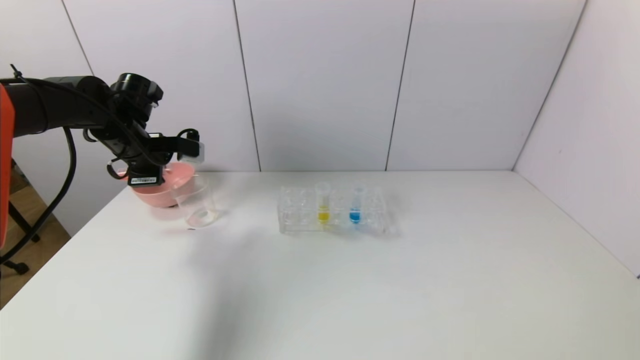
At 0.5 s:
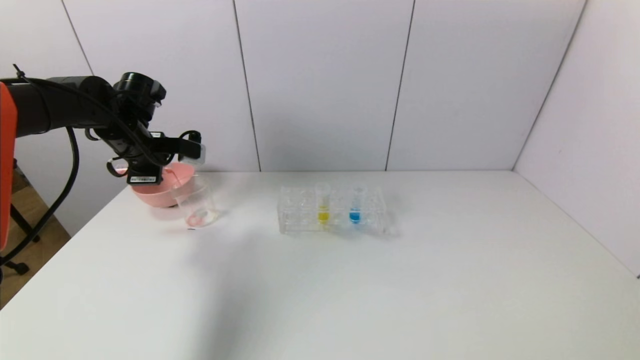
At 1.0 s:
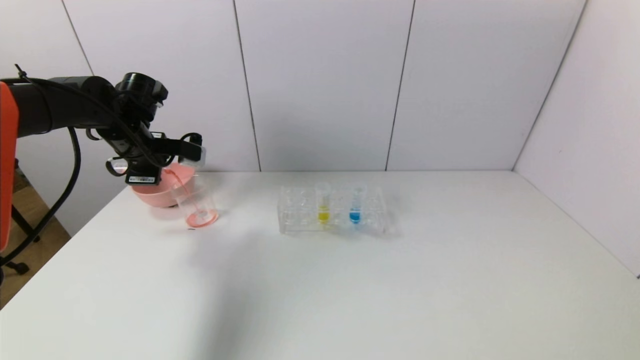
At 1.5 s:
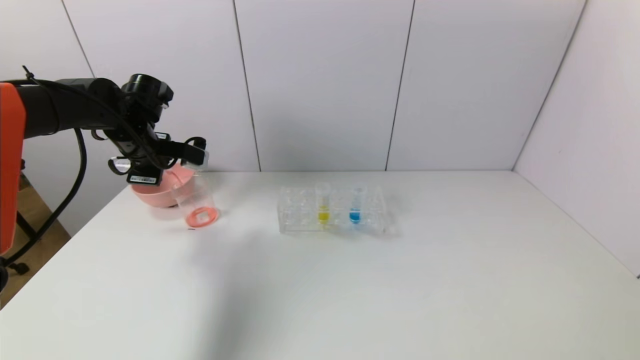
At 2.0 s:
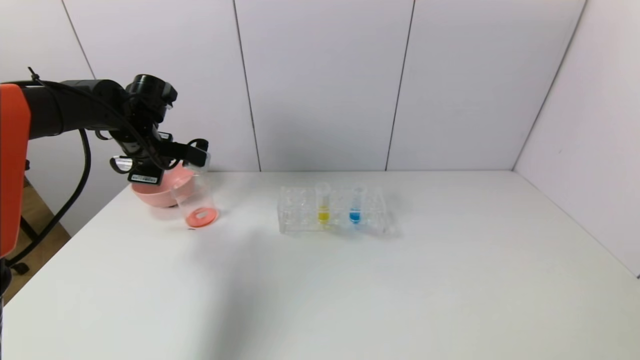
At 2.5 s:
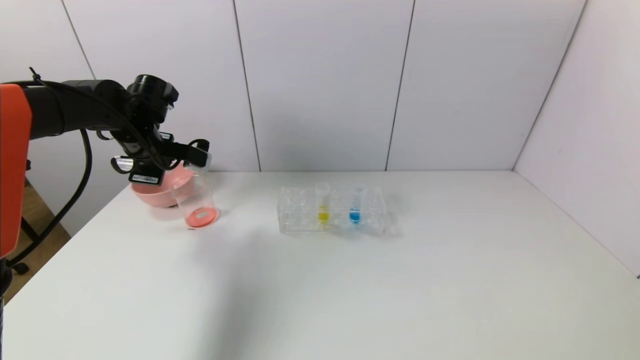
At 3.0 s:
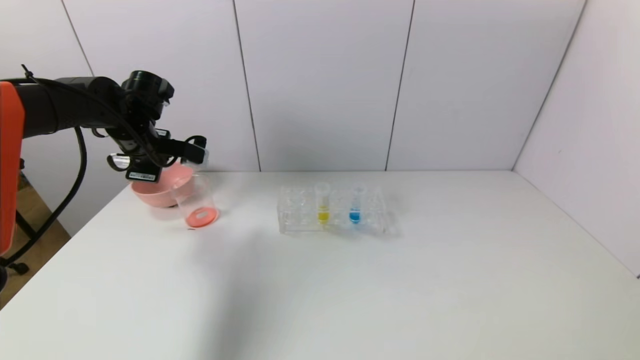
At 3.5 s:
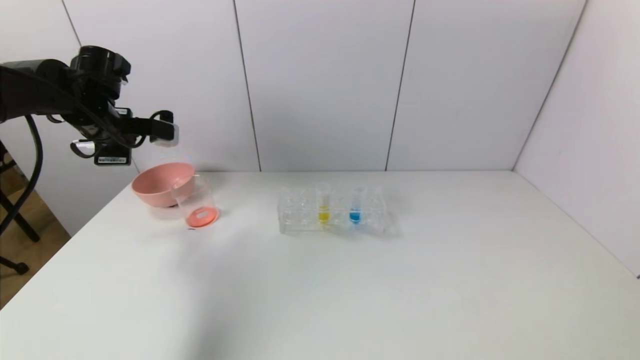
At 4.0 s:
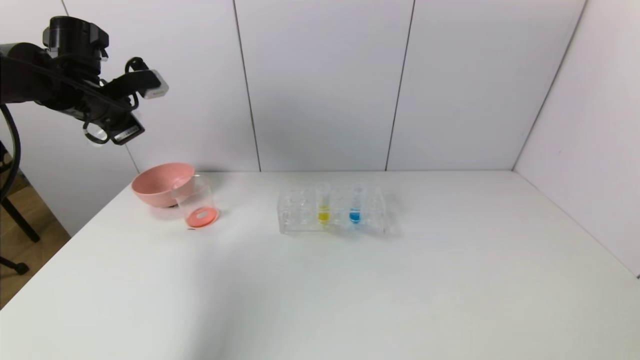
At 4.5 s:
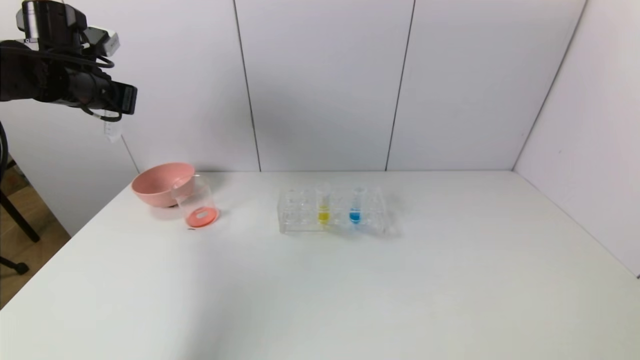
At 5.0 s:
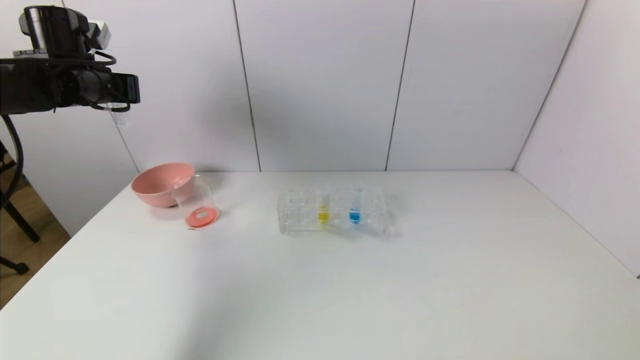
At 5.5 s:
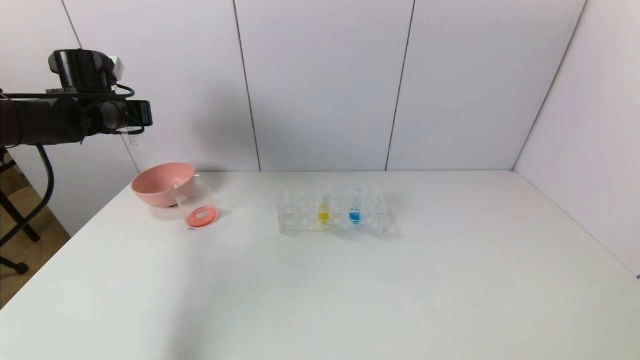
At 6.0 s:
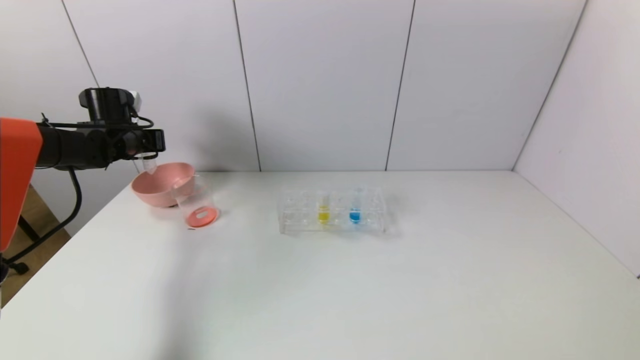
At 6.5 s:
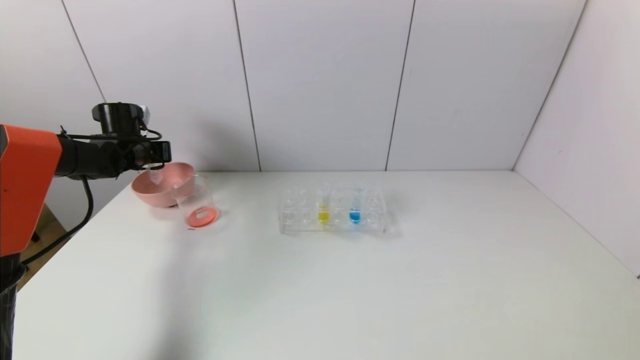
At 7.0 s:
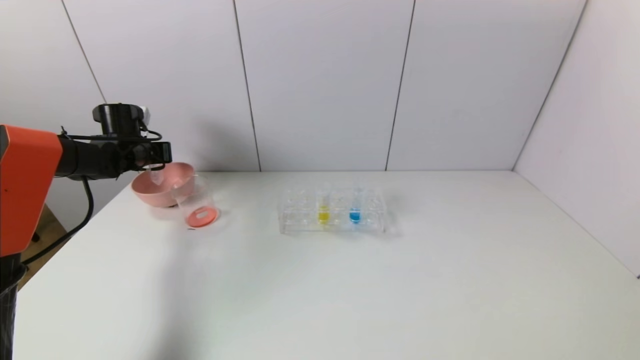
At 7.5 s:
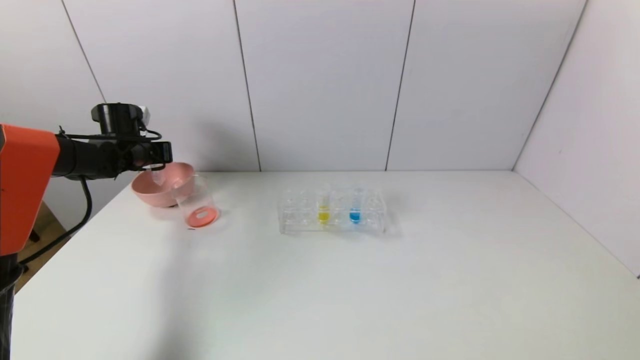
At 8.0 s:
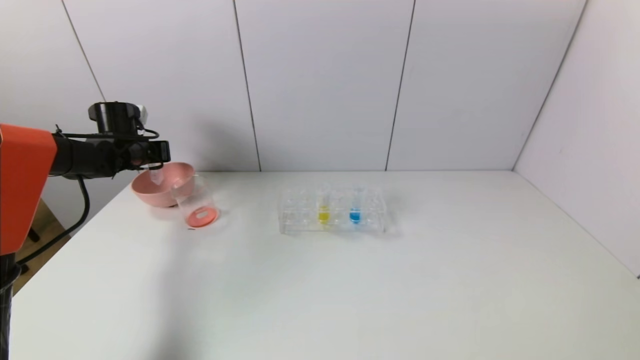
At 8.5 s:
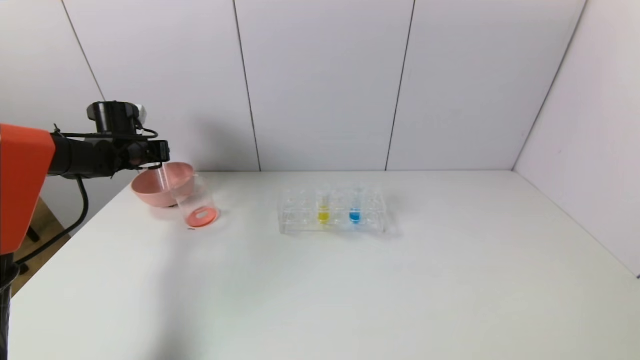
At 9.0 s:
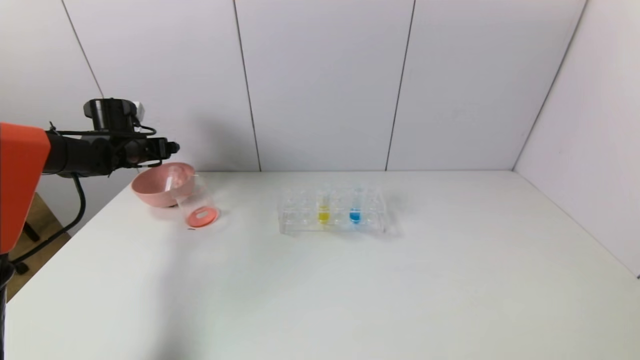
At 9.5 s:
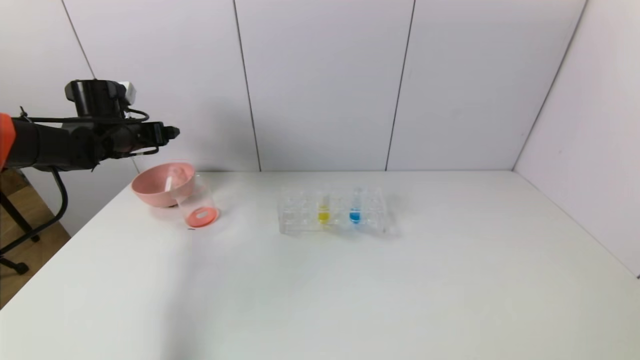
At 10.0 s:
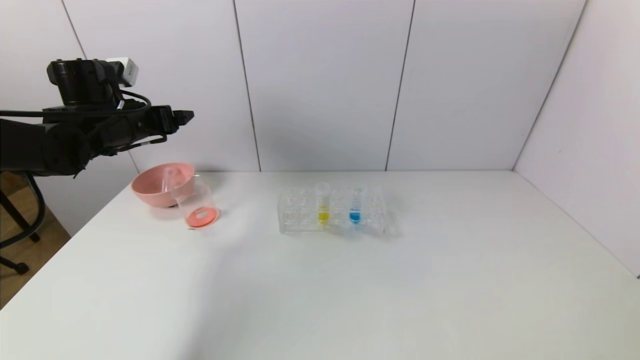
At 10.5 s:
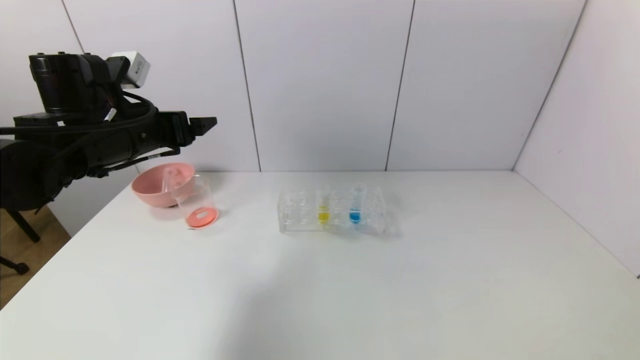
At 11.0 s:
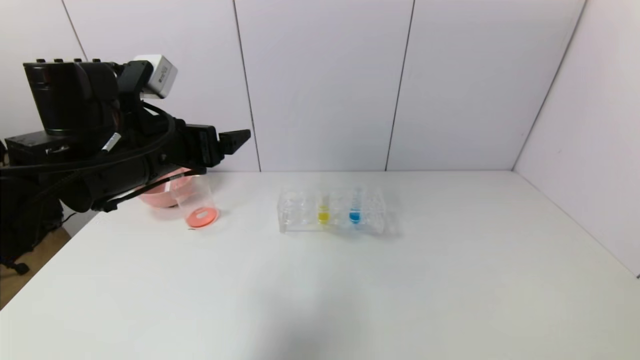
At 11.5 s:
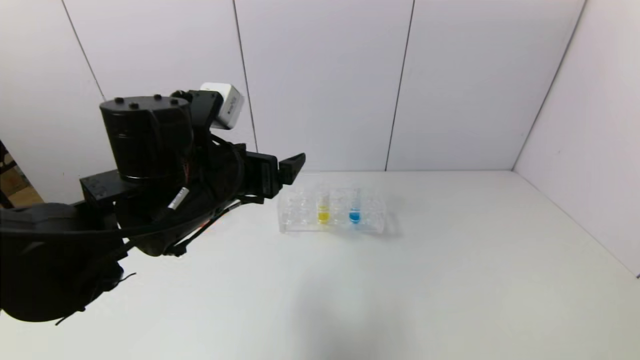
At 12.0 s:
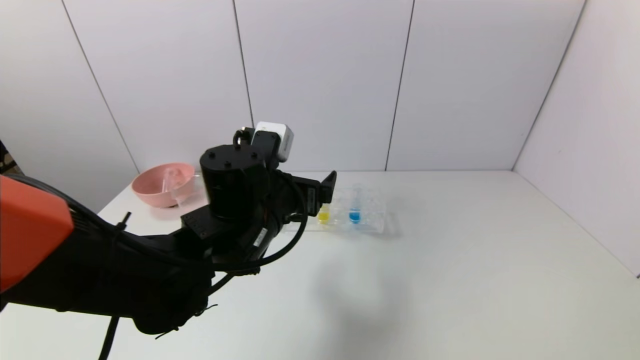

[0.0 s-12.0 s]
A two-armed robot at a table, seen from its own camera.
Task of the whole recording: pick up the test tube with yellow pigment and the test tube with red pigment by grippers and pour them into the beaker.
Step, 0.0 to 2.5 s: Pour the red reagent into the graduated cylinder with the left gripper.
Step, 3.0 to 8.5 s: Place the test tube into the pink bowl with the left gripper.
0.0 to 2.0 s: The grippers make only small movements.
2.0 to 4.0 s: The left gripper is displaced upward by about 10 cm.
4.0 to 6.0 s: The left gripper travels downward and forward by about 15 cm.
6.0 to 8.0 s: The grippers stay close to where they were, moving slightly.
8.0 to 10.0 s: The left gripper goes approximately 15 cm backward, upward and to the right, and opens its fingers.
10.0 to 12.0 s: The left gripper goes about 25 cm to the right and backward.

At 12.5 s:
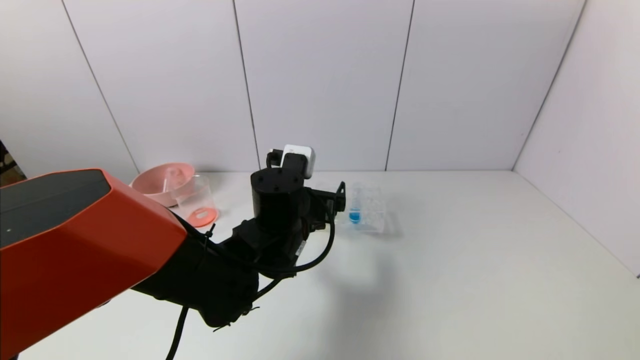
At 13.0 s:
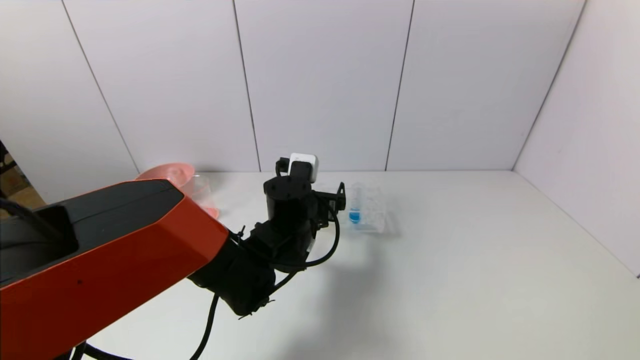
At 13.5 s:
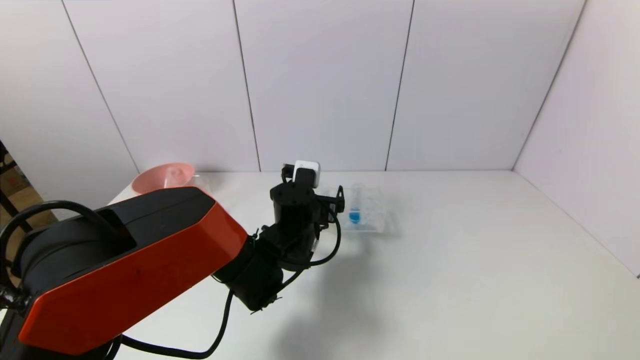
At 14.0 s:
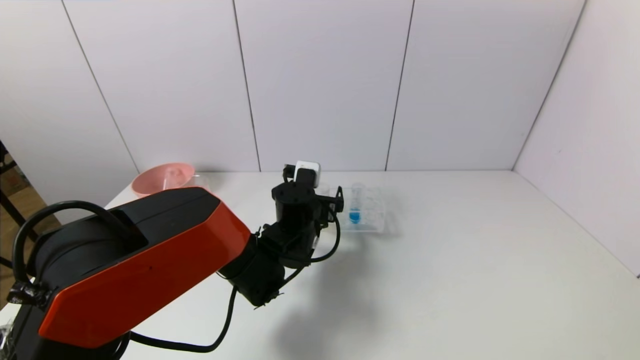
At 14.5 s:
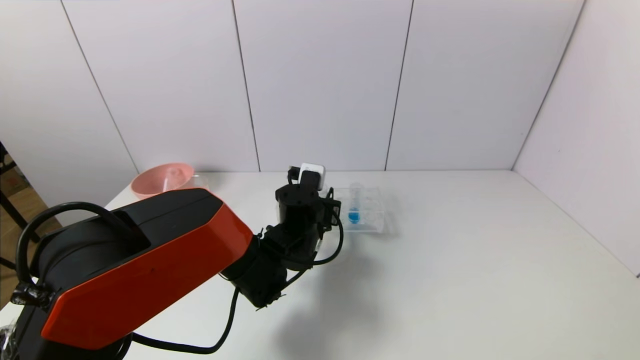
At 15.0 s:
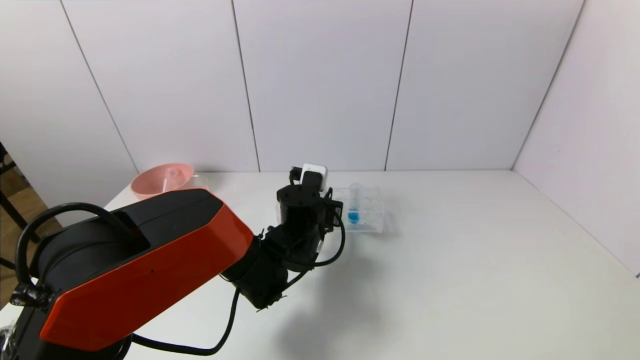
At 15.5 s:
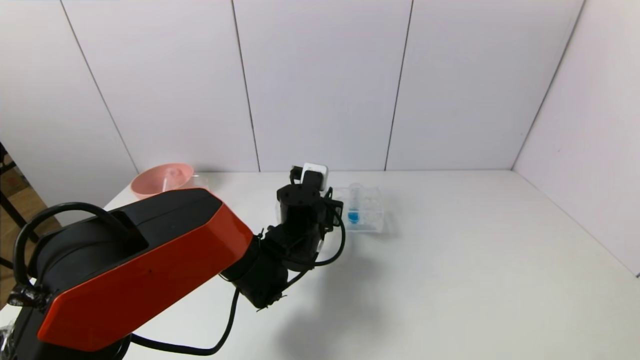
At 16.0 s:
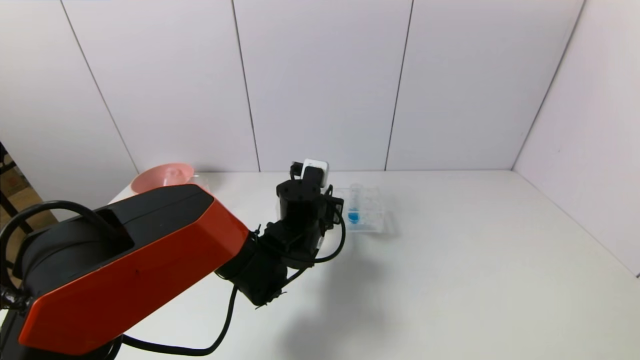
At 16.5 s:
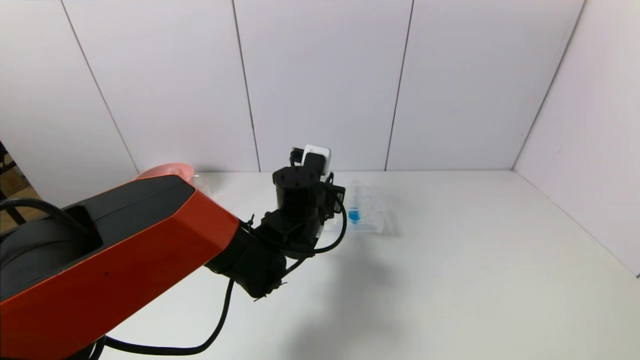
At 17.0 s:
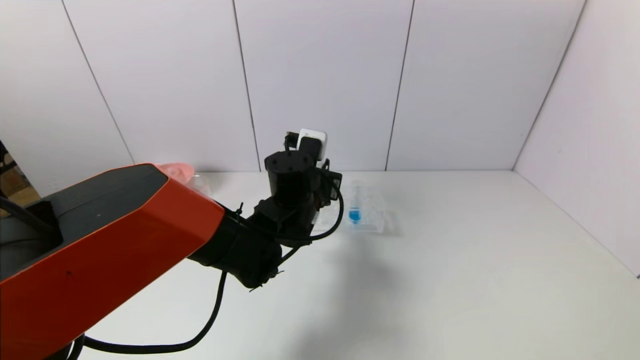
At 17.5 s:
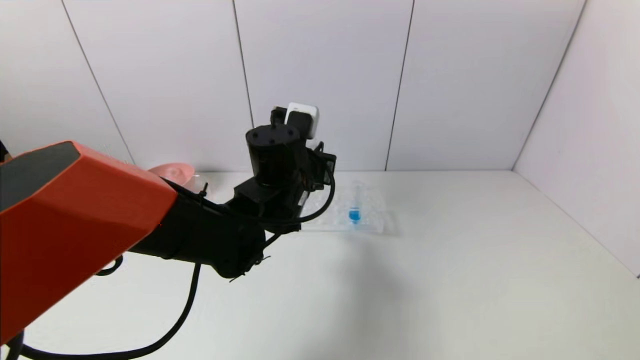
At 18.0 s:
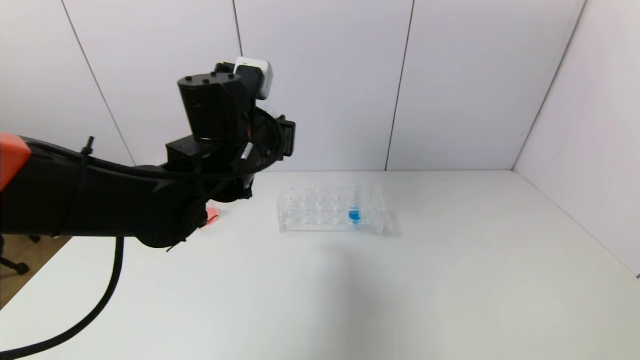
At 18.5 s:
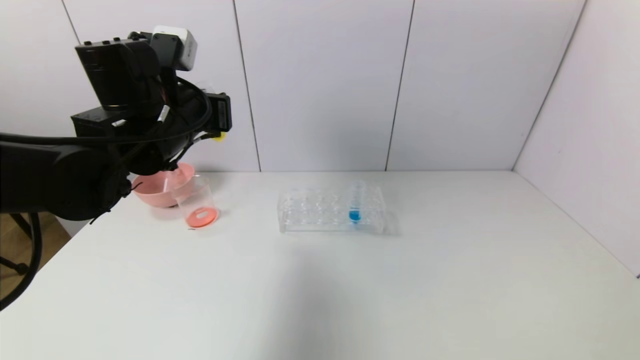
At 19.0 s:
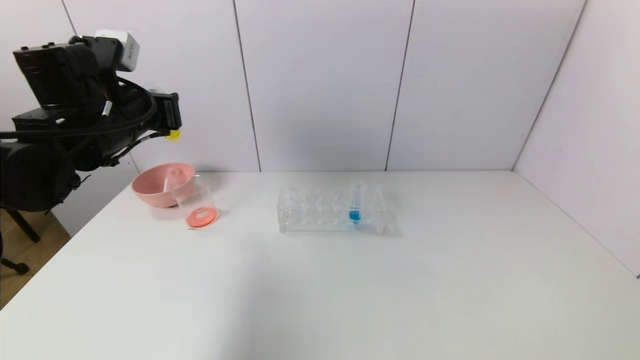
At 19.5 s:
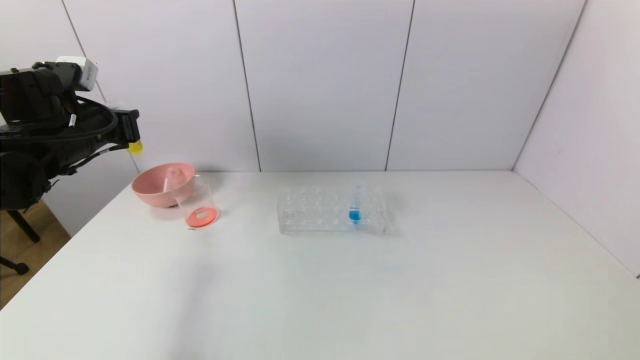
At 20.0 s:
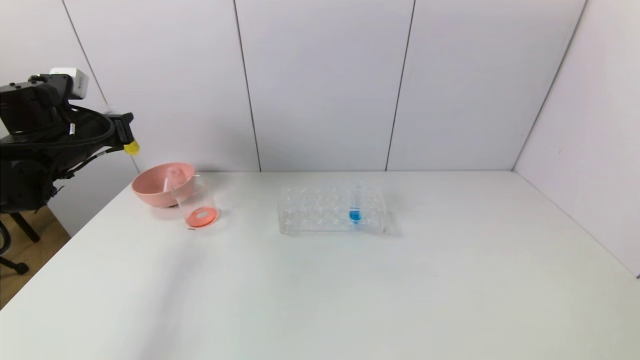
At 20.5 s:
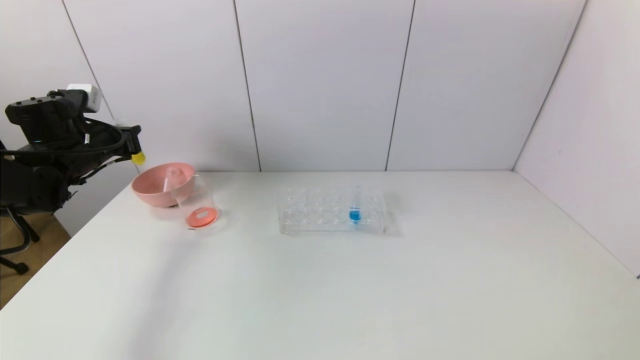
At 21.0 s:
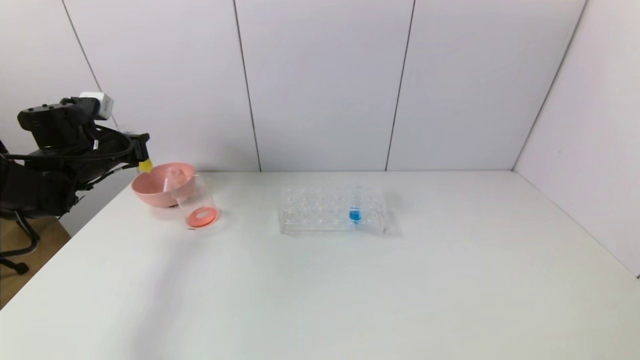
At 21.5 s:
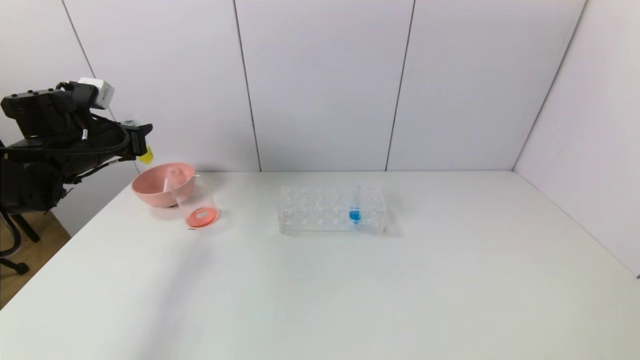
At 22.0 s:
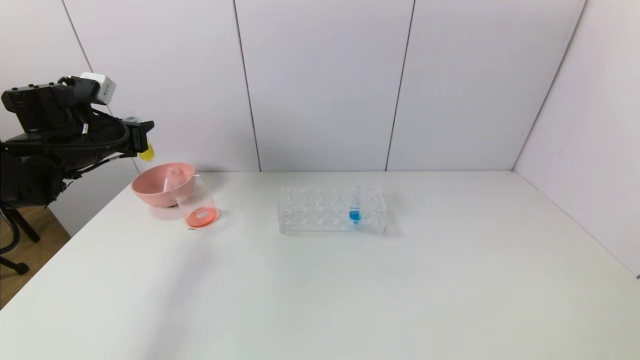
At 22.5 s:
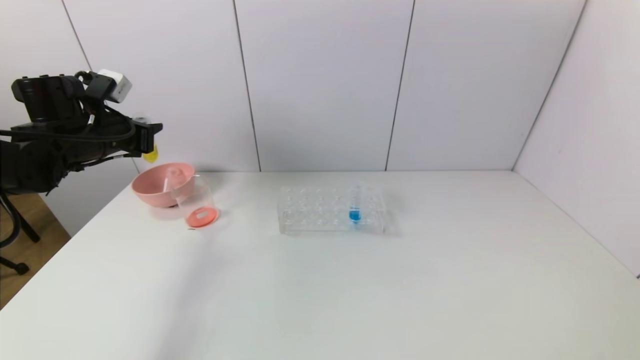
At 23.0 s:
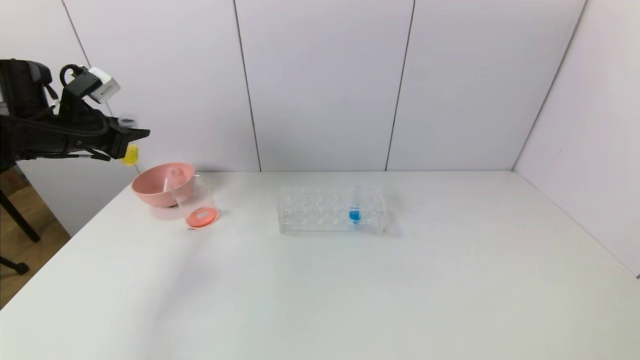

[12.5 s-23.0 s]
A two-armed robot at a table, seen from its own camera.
Task of the whole recording: pick up the test tube with yellow pigment and the test tube with red pigment by grippers and pour them into the beaker.
Step, 12.5 to 14.5 s: Grasp the yellow reagent with the left gripper.
12.5 to 14.5 s: The left gripper moves forward and downward, approximately 10 cm, and closes its fingers.
14.5 to 16.5 s: The grippers make only small movements.
16.5 to 19.0 s: The left gripper travels to the left and upward by approximately 30 cm.
19.0 to 21.0 s: The left gripper shifts roughly 15 cm to the left, downward and forward.
21.0 to 23.0 s: The left gripper moves upward, some 5 cm.
